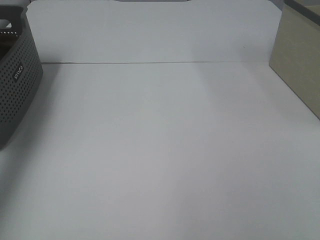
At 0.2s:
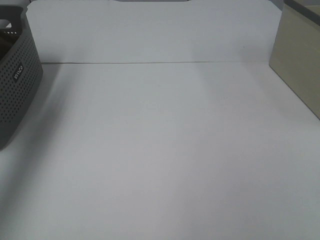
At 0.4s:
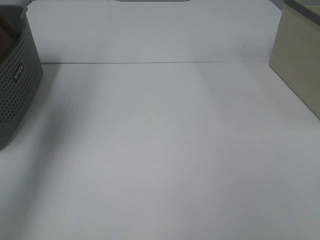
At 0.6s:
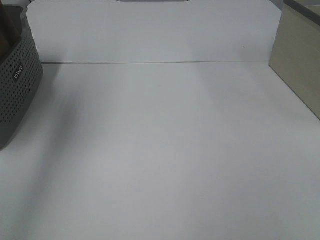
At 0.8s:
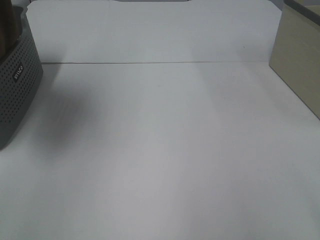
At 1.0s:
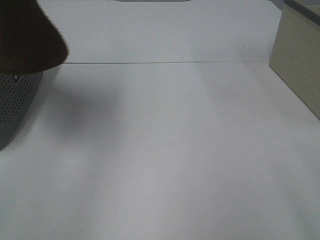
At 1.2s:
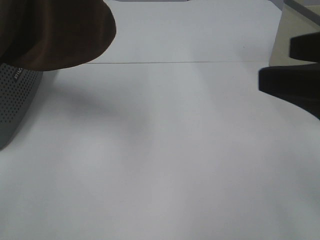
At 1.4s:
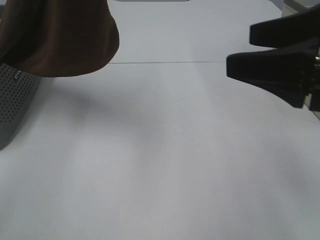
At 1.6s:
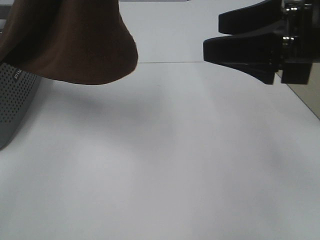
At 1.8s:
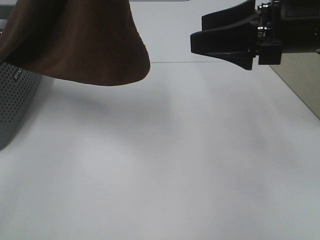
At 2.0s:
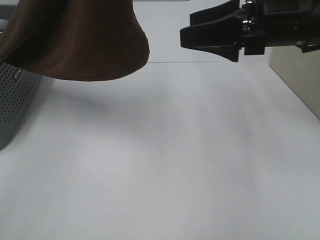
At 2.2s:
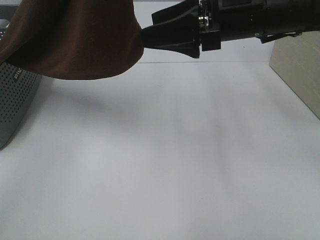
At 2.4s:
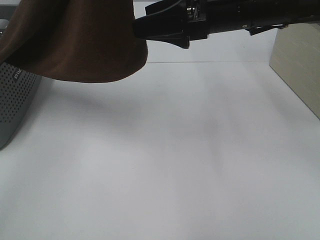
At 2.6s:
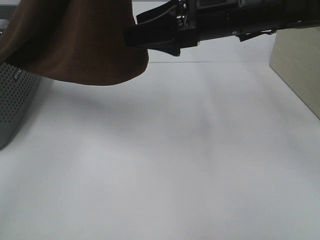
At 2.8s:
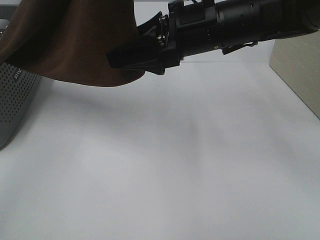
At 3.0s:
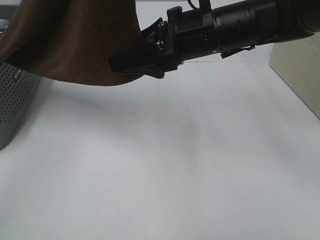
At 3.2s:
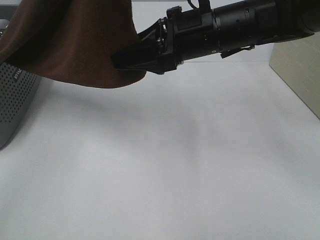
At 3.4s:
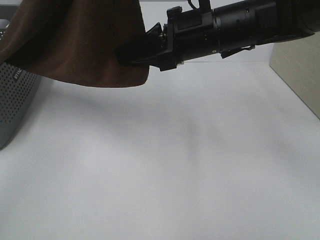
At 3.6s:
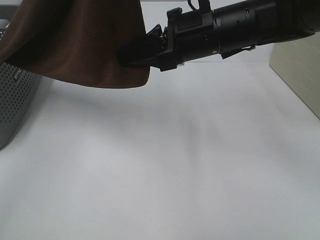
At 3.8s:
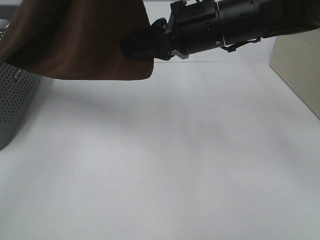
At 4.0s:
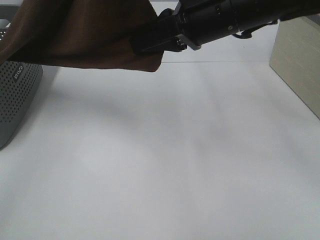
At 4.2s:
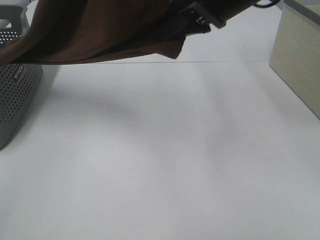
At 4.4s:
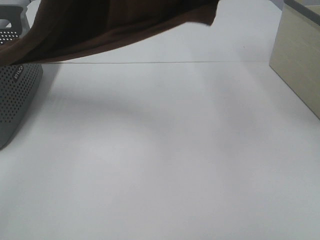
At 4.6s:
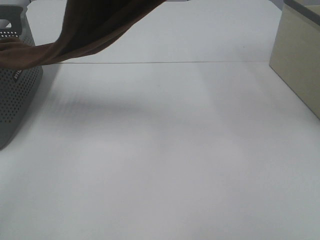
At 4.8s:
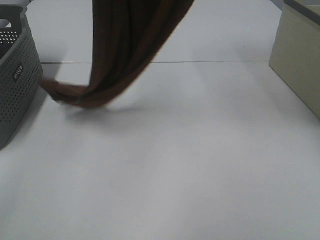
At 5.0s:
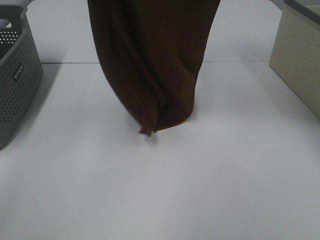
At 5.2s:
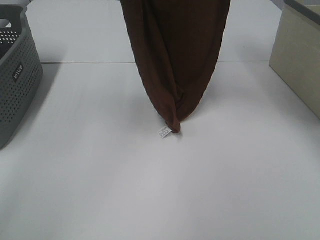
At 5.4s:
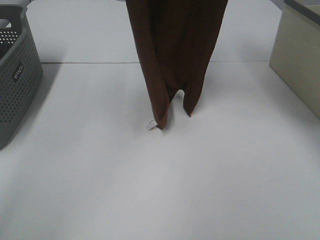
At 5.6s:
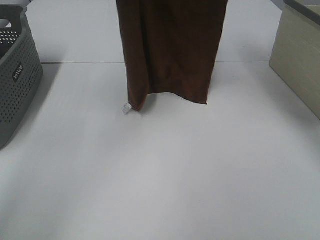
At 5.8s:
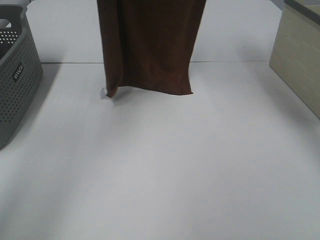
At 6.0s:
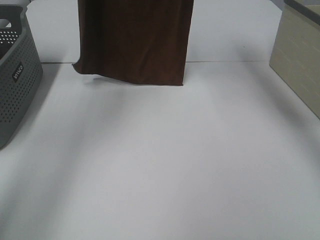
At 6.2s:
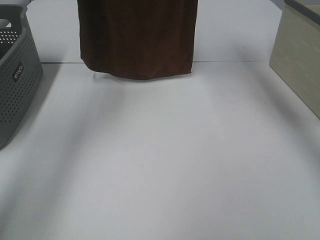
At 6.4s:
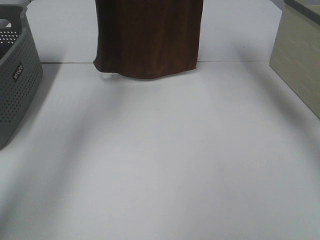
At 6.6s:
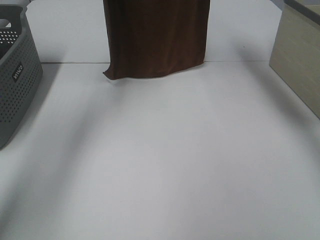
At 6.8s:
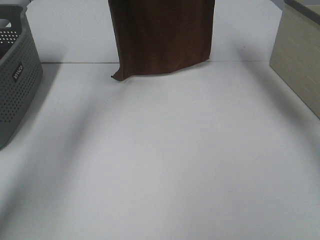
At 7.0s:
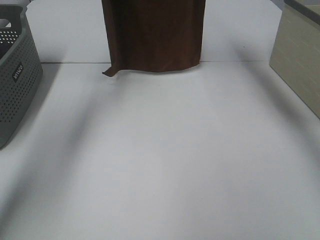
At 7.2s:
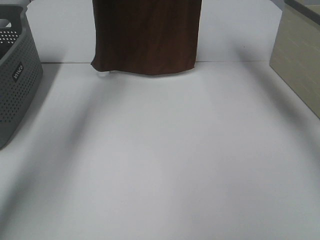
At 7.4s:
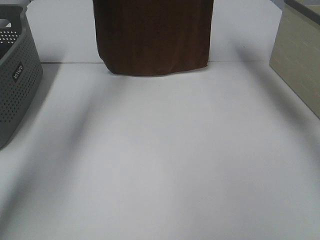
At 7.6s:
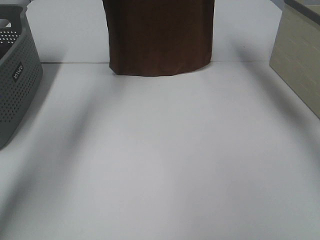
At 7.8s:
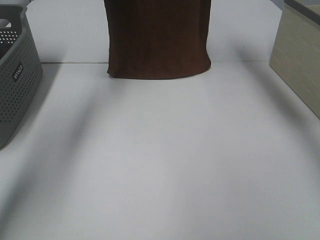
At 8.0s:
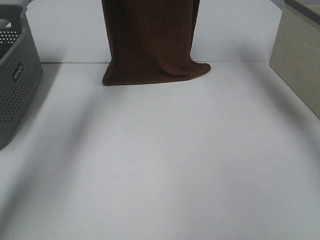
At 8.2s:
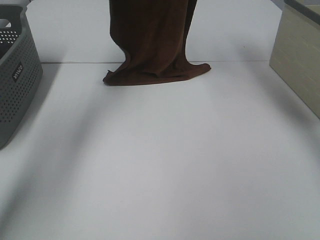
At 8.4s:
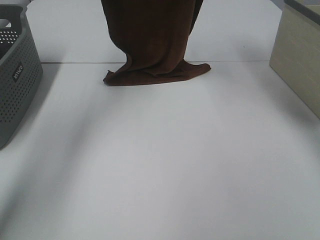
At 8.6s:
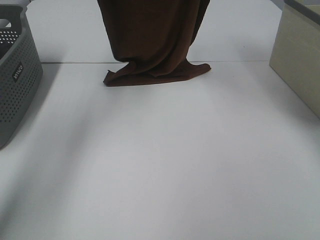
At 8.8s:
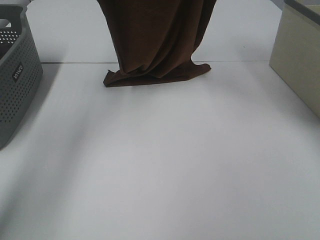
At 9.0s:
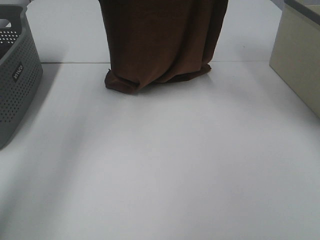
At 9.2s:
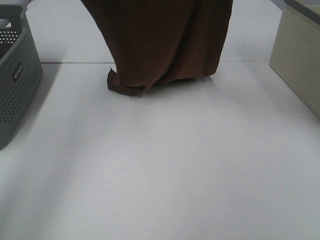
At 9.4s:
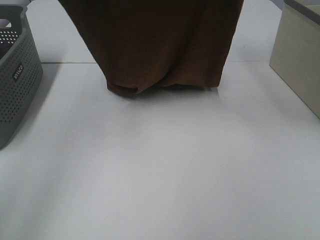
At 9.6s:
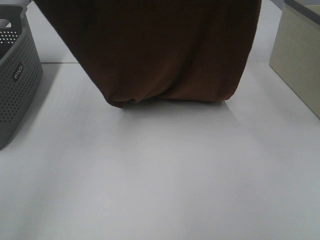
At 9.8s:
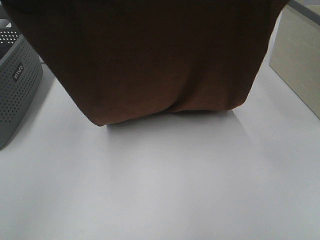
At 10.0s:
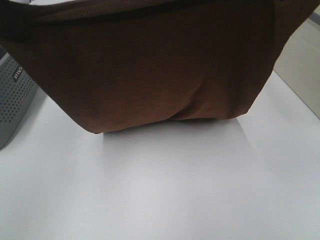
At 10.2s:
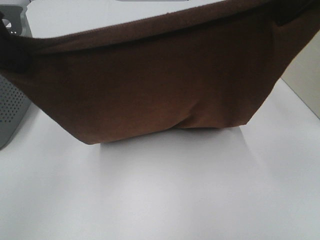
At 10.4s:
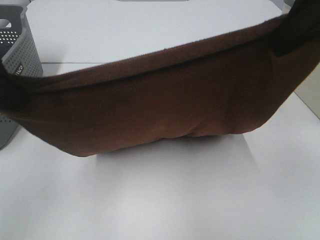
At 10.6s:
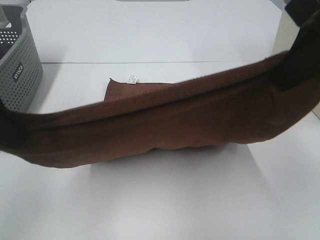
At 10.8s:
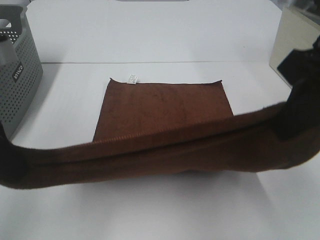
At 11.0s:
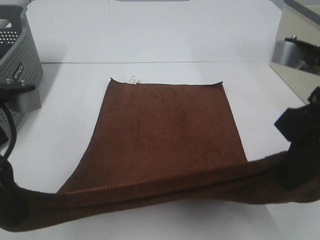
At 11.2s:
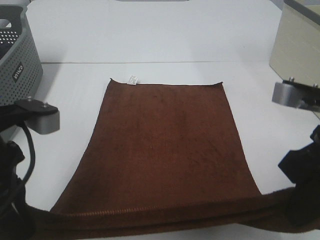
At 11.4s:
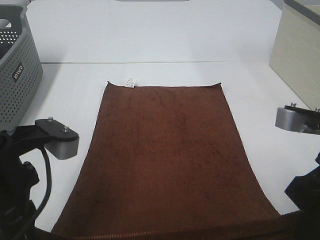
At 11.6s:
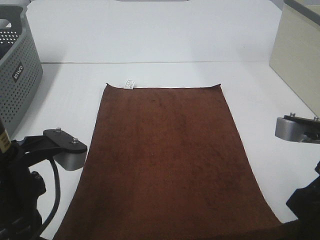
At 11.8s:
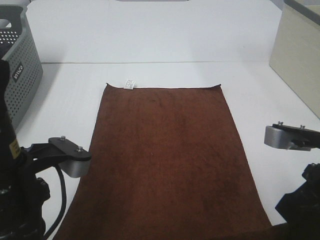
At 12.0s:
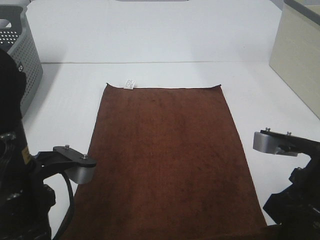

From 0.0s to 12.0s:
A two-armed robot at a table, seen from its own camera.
Task of the whole recording: Remove the towel and place it.
Step, from 0.6s to 3.4s: Right hand: grab a corner of the brown towel and straighten it.
Step, from 3.6s to 9.2s: Left hand: spread the brown towel flat on the table.
Step, from 3.6s to 9.2s: Right hand: spread the brown towel flat on the table.
From 0.0s to 1.6s: The left gripper shifts about 25 cm to the right. The right gripper moves forward and to the left, some 25 cm.
From 1.6s to 3.0s: The right gripper shifts roughly 15 cm to the left and forward.
From 3.0s to 4.4s: The right gripper goes some 15 cm upward, and closes.
From 4.4s to 6.0s: The left gripper moves forward and to the left, about 20 cm; the right gripper travels forward and upward by approximately 15 cm.
From 6.0s to 7.6s: The left gripper heads forward and downward, covering about 10 cm; the right gripper shifts some 5 cm forward.
From 7.6s to 9.0s: The two grippers go roughly 10 cm backward.
From 9.0s to 10.4s: The two grippers go approximately 20 cm backward and downward.
From 10.4s to 12.0s: The right gripper travels downward by some 20 cm. The left gripper is displaced downward and to the right by some 15 cm.

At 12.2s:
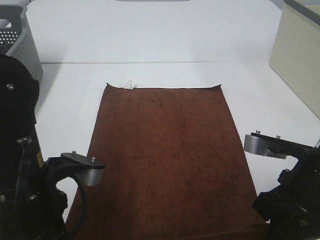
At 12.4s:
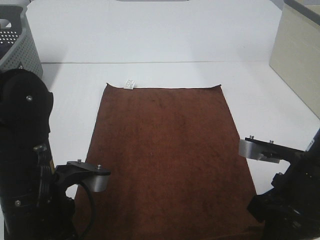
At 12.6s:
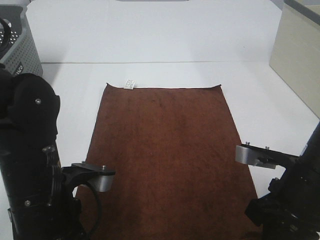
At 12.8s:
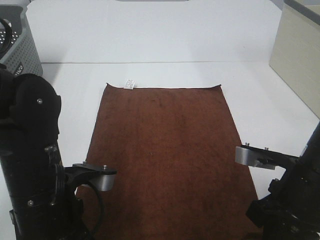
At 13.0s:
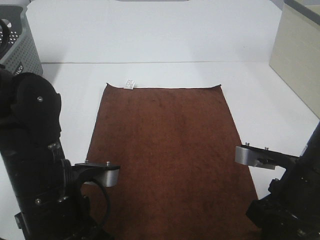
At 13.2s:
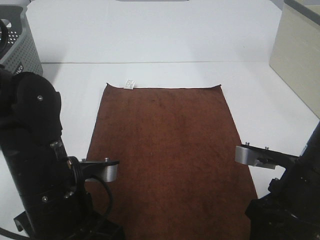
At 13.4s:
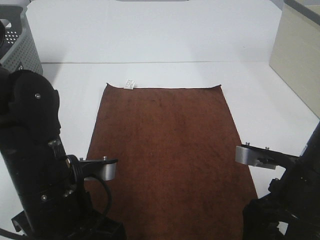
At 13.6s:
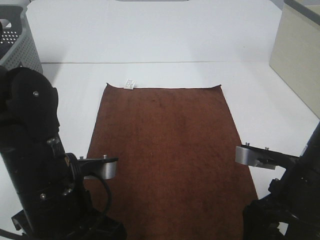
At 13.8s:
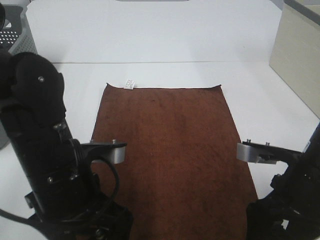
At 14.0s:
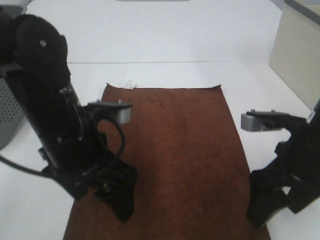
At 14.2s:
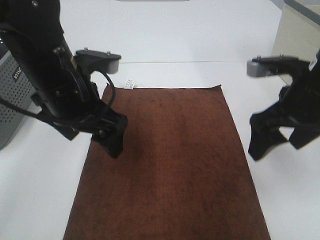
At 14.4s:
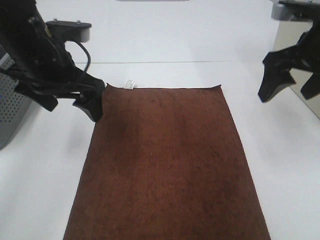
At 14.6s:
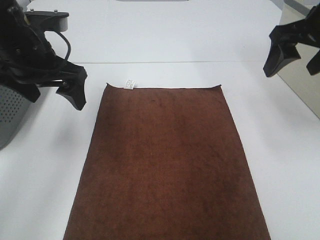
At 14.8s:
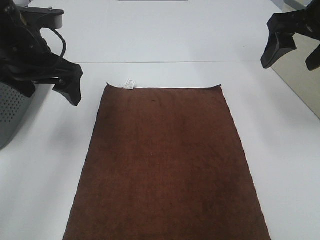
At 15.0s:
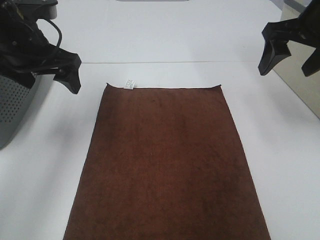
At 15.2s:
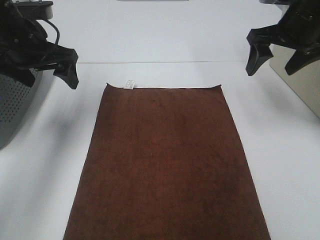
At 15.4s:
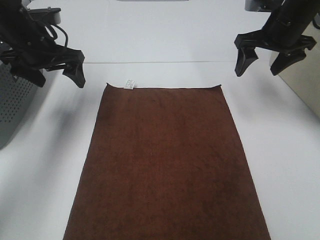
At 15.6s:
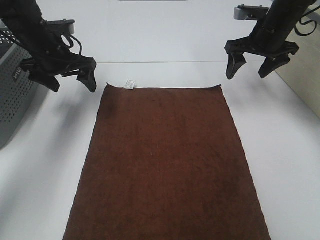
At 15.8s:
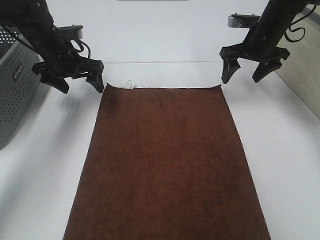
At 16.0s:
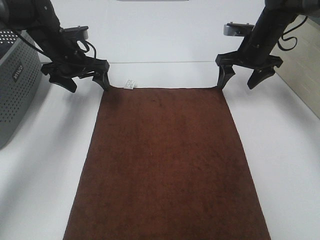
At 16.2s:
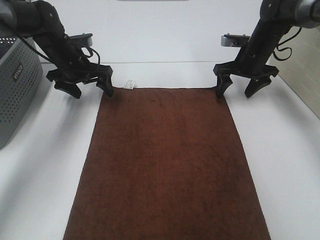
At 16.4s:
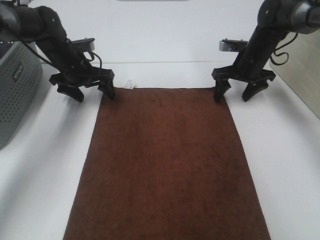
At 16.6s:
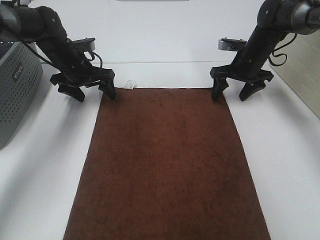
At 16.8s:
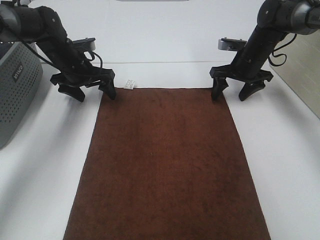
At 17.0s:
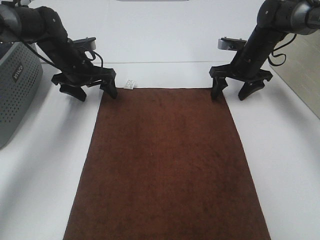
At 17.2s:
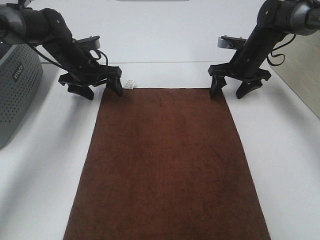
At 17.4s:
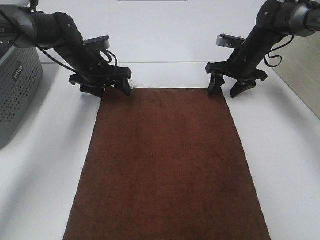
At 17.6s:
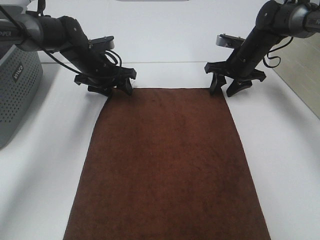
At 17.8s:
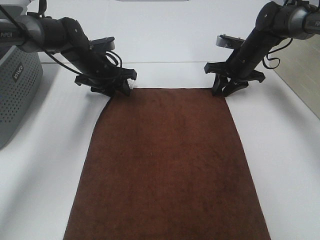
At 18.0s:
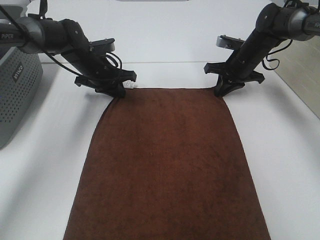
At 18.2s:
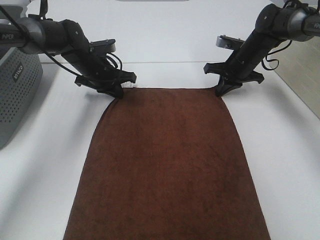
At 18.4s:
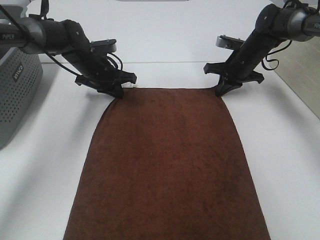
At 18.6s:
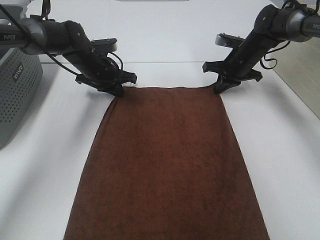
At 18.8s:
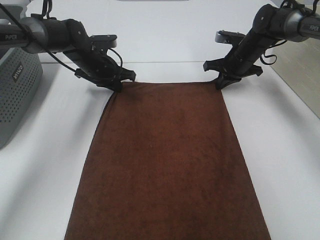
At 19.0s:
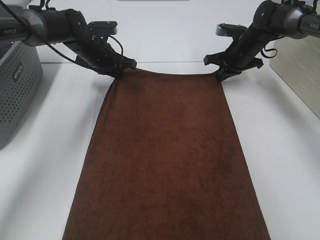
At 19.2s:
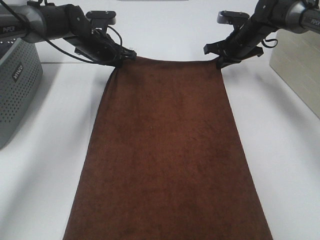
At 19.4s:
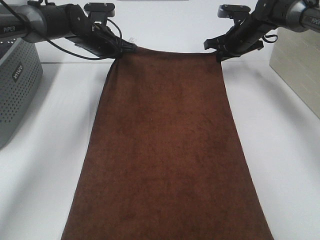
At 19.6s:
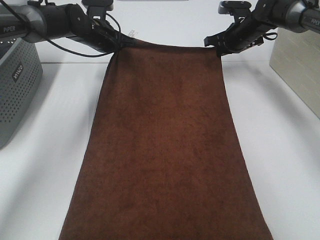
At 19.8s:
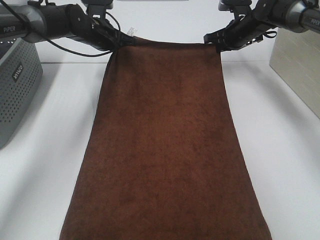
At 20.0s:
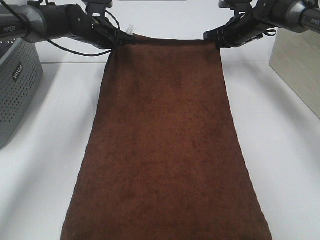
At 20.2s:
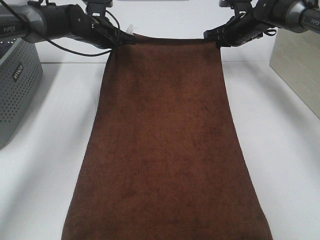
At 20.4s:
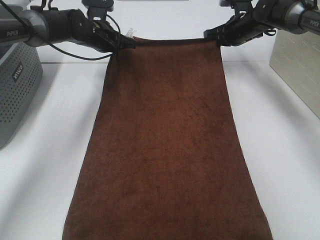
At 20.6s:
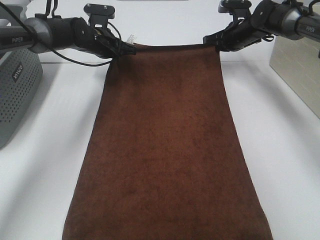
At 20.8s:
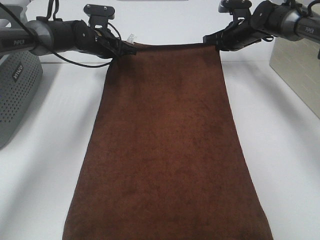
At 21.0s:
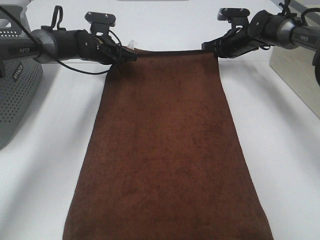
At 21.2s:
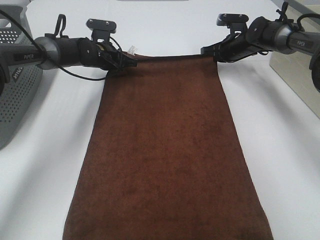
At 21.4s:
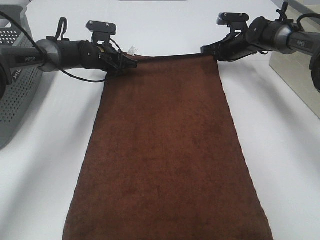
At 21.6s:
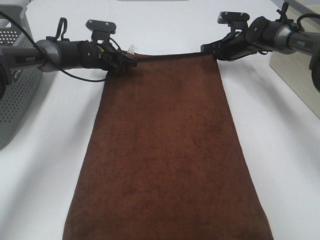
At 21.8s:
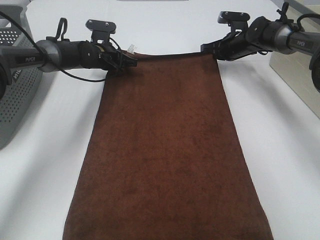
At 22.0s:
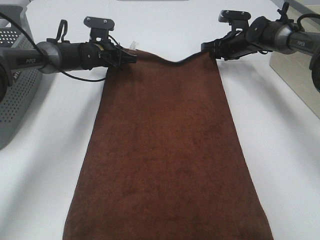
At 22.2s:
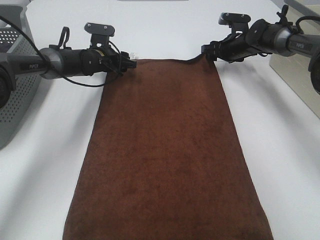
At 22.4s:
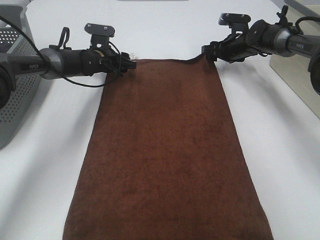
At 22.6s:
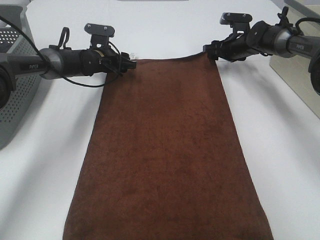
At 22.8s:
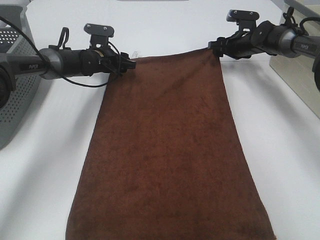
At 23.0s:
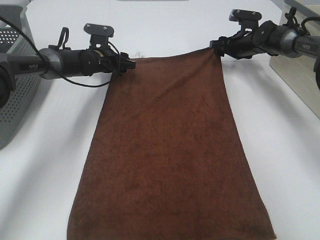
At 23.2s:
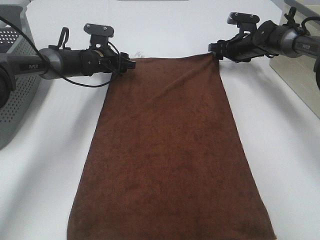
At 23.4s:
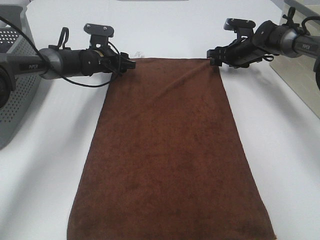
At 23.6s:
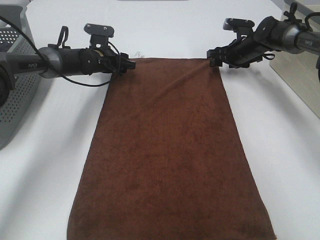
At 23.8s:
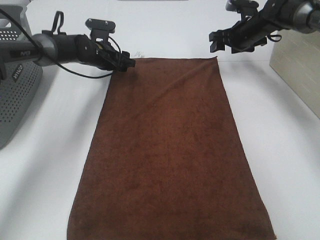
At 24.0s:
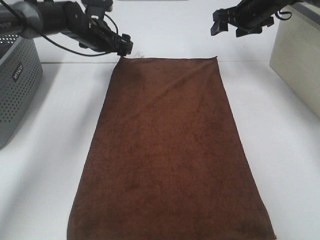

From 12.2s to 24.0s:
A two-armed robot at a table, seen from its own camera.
Task of the whole recording: Remove the towel and place it.
Step, from 12.2s to 16.8s: Left hand:adjust the brown towel.
Step, from 12.2s to 17.4s: Right hand:adjust the brown towel.
From 12.2s to 13.6s: The right gripper opens its fingers. Meanwhile the left gripper opens its fingers.
From 13.6s to 15.2s: The left gripper moves forward and to the left, some 25 cm. The right gripper moves forward and upward, roughly 25 cm.
From 15.2s to 16.6s: Both grippers move downward and forward, about 15 cm.
From 16.6s to 18.2s: The right gripper closes up, while the left gripper closes up.
From 18.2s to 19.6s: The left gripper moves upward, roughly 5 cm. Meanwhile the right gripper moves forward and upward, some 5 cm.
From 19.6s to 21.0s: The grippers make only small movements.
From 21.0s to 22.6s: The left gripper opens; the right gripper opens.
From 22.6s to 24.0s: Both grippers travel together upward, about 10 cm.
